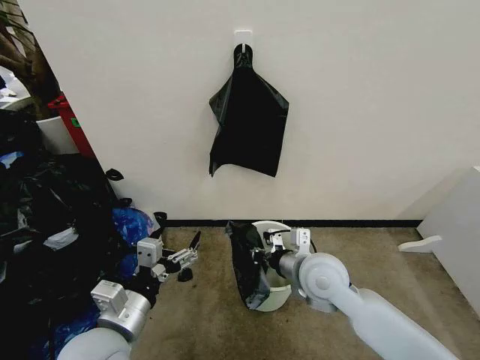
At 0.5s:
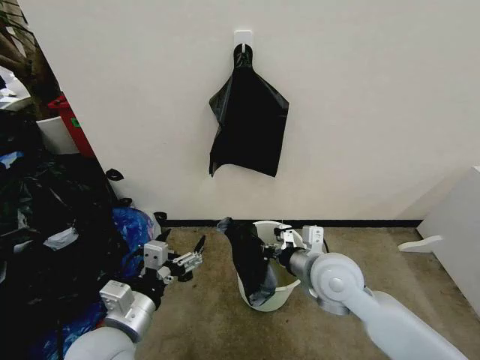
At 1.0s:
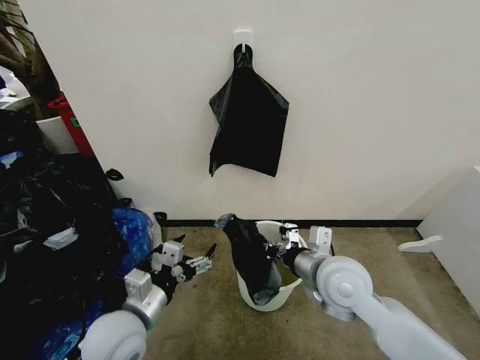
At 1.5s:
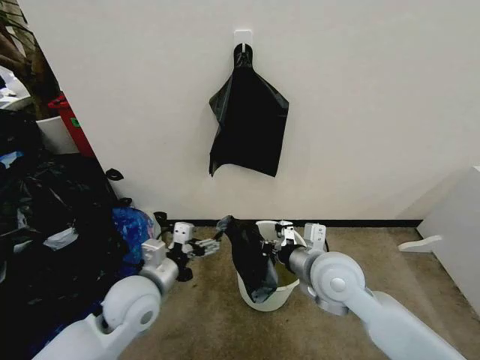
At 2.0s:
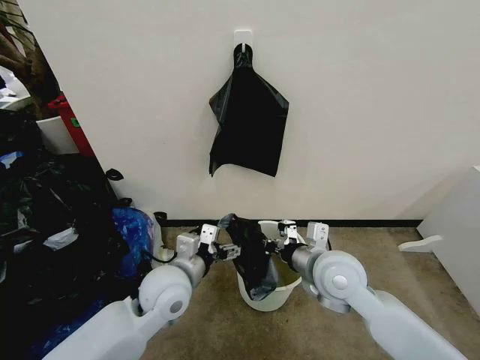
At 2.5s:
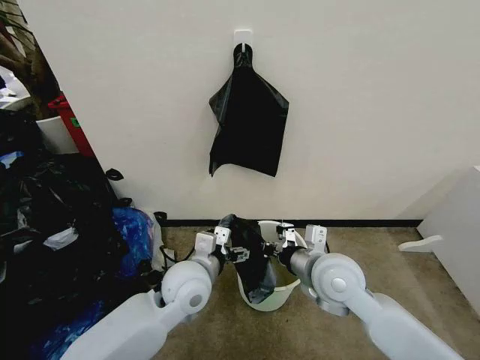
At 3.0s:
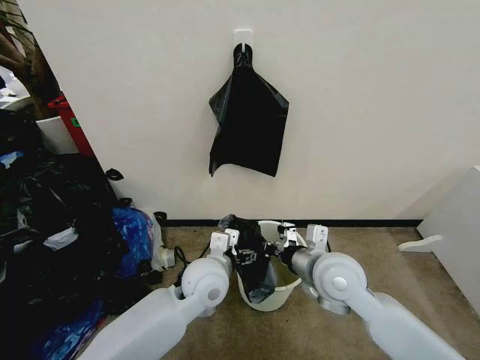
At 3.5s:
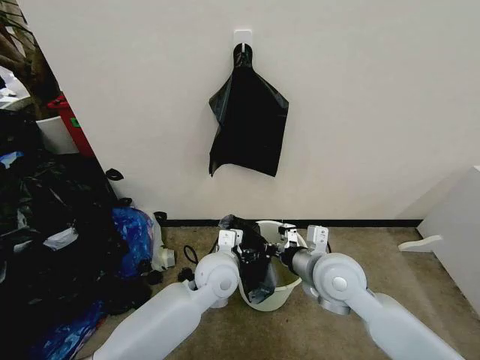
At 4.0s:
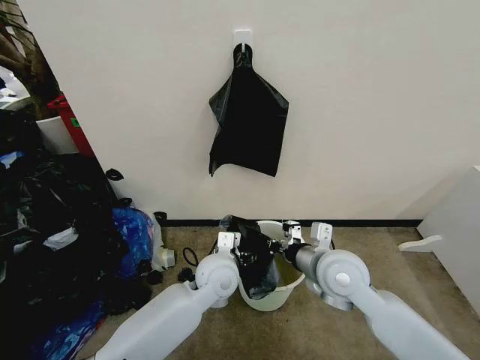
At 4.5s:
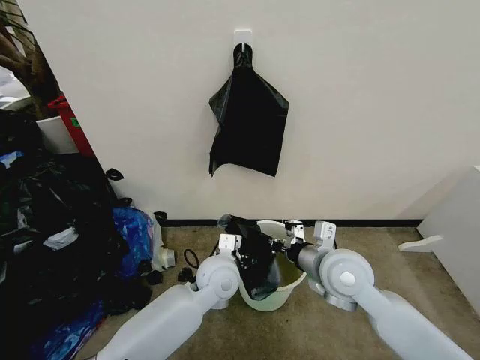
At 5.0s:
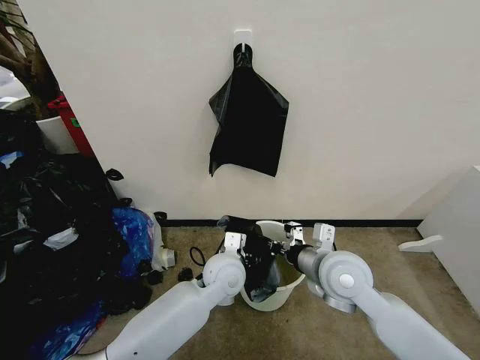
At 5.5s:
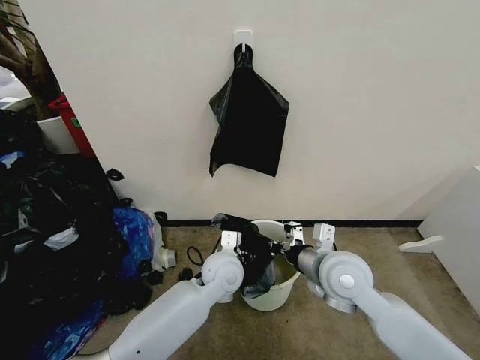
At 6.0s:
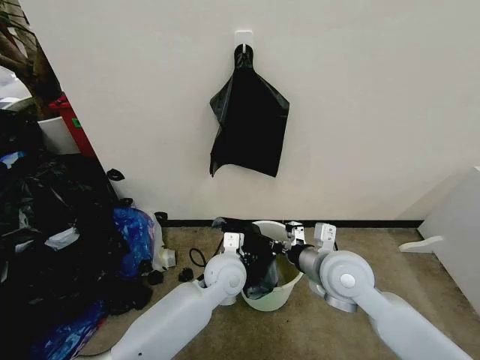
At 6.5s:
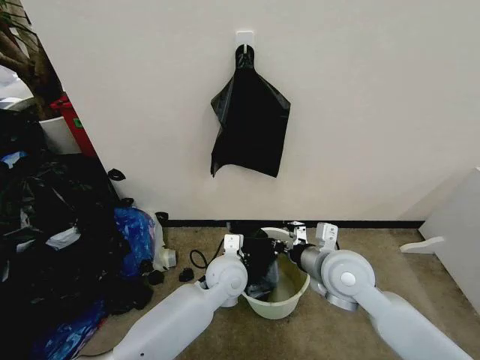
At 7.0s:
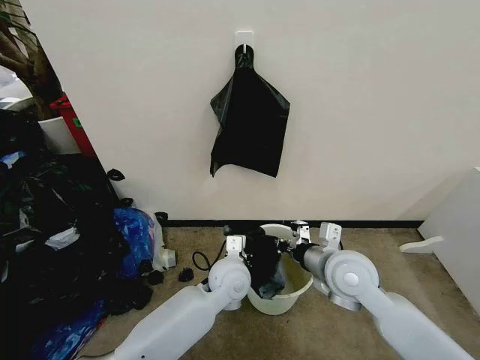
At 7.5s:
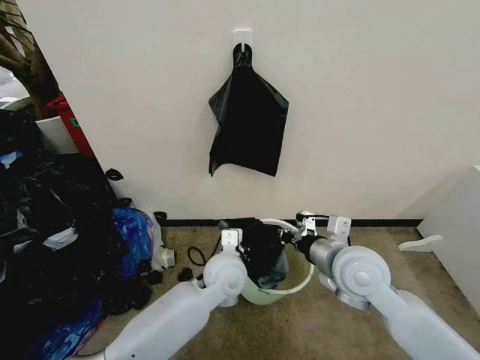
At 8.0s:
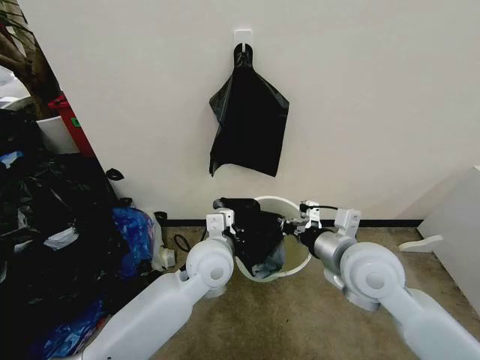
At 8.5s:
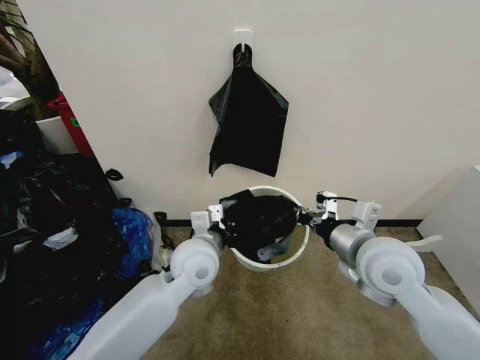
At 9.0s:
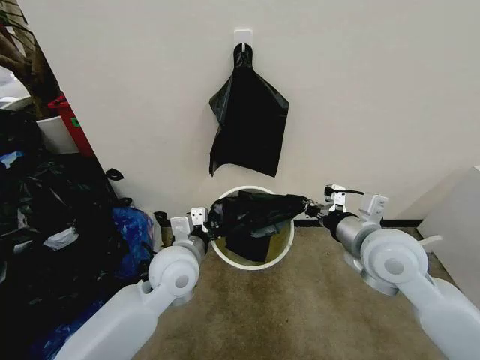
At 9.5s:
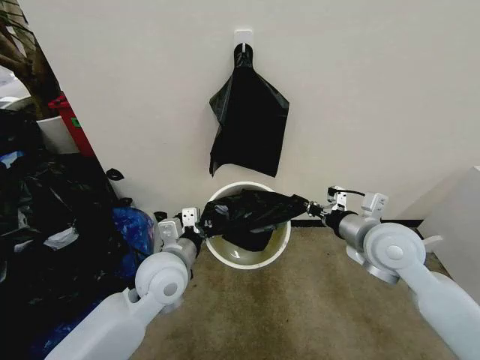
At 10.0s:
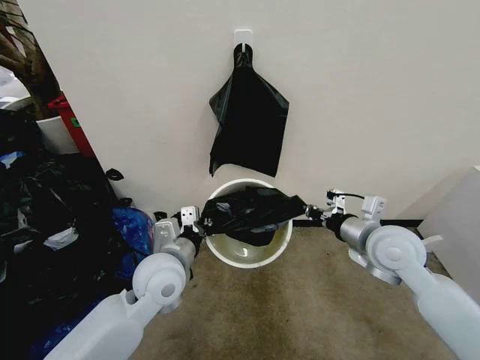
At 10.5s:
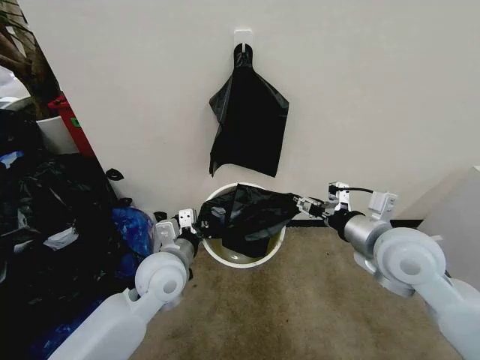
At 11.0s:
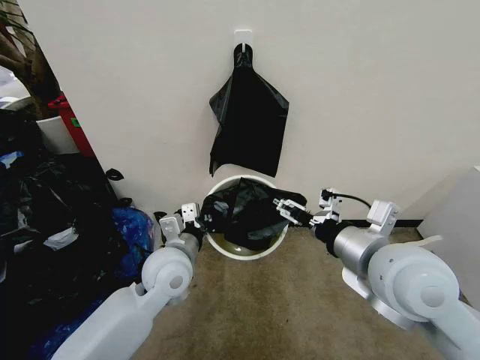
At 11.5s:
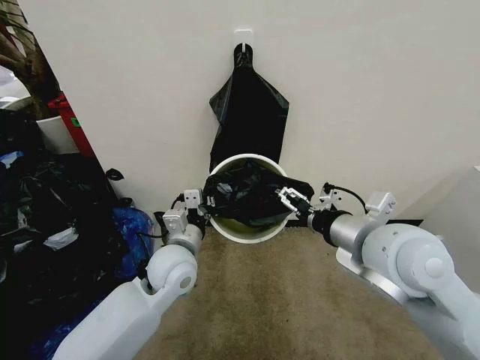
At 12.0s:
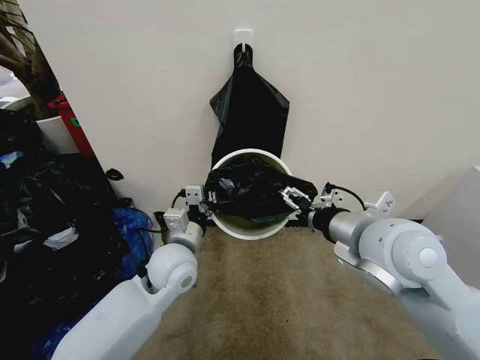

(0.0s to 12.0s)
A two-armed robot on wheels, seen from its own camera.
Task of the whole recording: Place the garbage bag over the trash bin.
0.0s - 2.0s: The left gripper goes approximately 15 cm forward and to the right.
2.0s - 4.0s: The left gripper shifts about 10 cm to the right.
4.0s - 6.0s: There are only small adjustments of the grippers.
6.0s - 8.0s: The left gripper travels upward by some 10 cm, and closes up, while the right gripper shifts some 5 cm upward.
8.0s - 10.0s: The right gripper travels to the right by approximately 5 cm; the left gripper heads to the left, covering roughly 10 cm.
10.0s - 12.0s: The right gripper is displaced upward, to the left and backward by approximately 15 cm, and opens up.

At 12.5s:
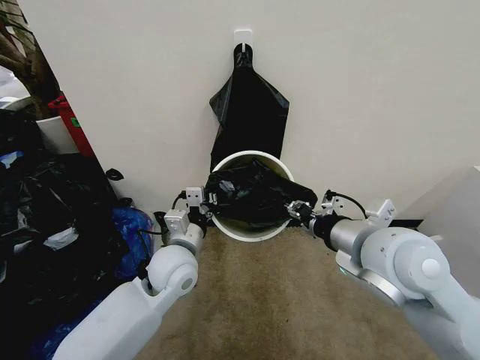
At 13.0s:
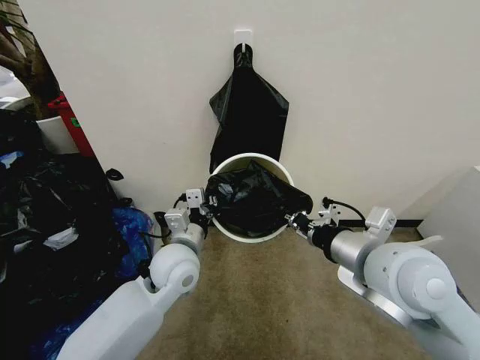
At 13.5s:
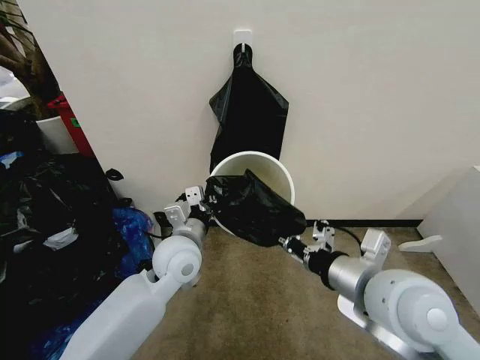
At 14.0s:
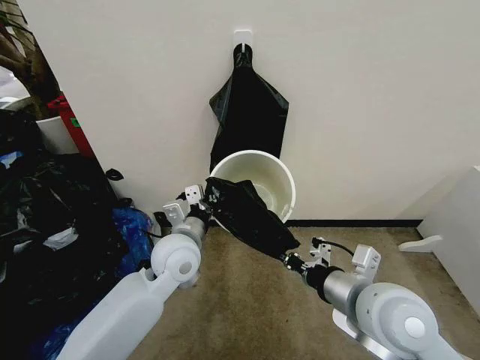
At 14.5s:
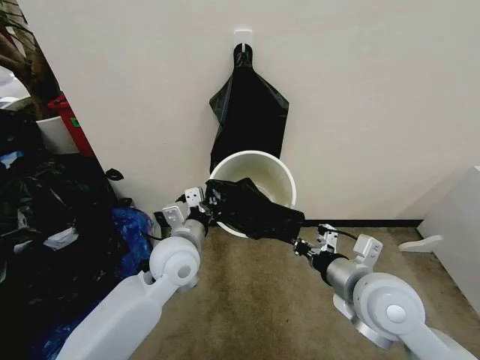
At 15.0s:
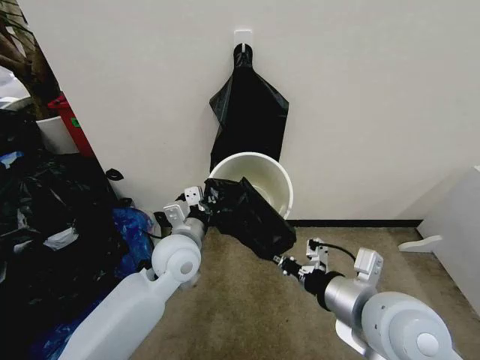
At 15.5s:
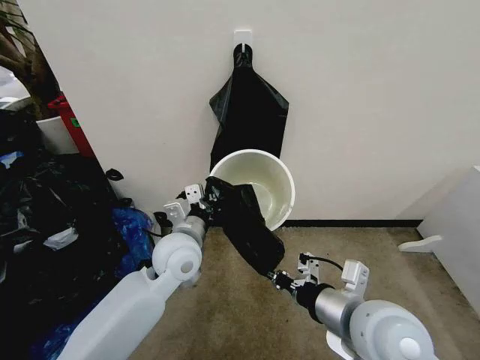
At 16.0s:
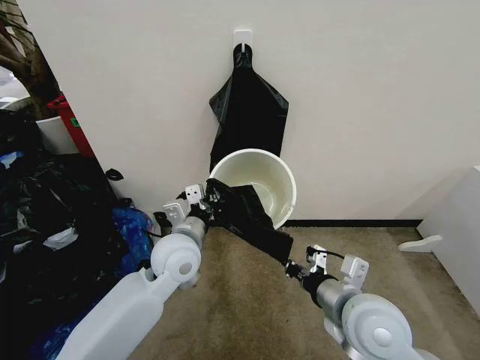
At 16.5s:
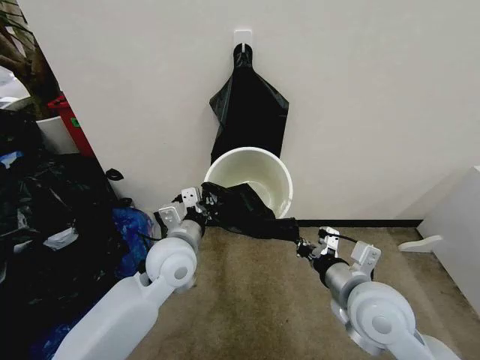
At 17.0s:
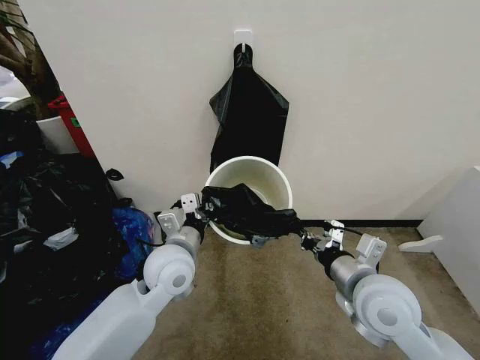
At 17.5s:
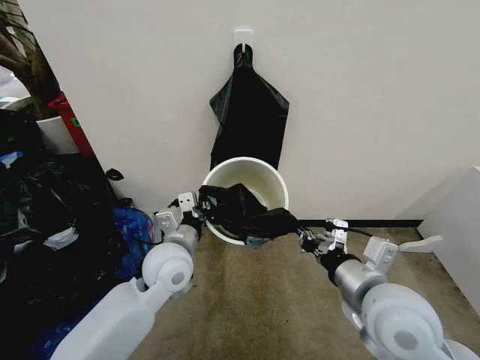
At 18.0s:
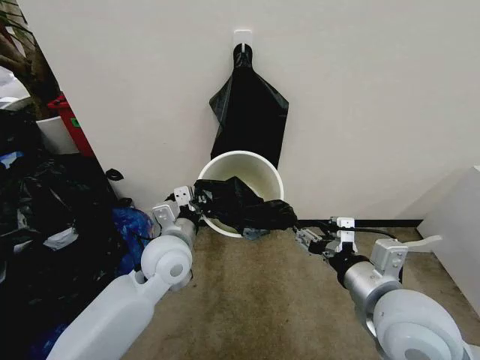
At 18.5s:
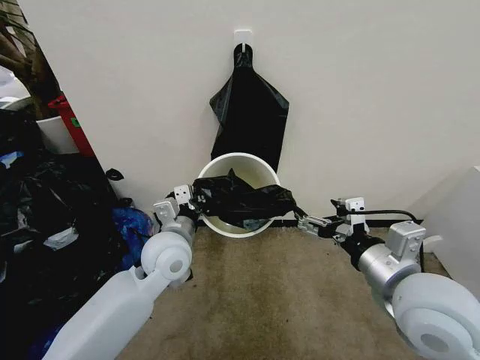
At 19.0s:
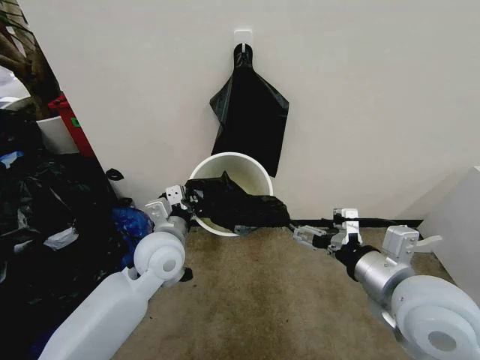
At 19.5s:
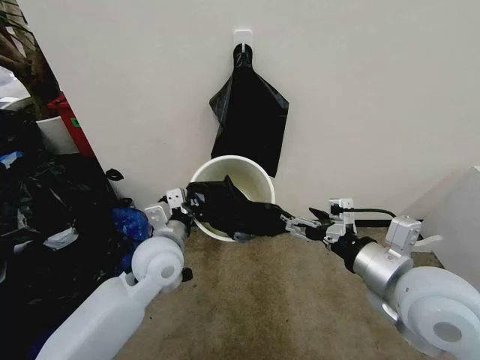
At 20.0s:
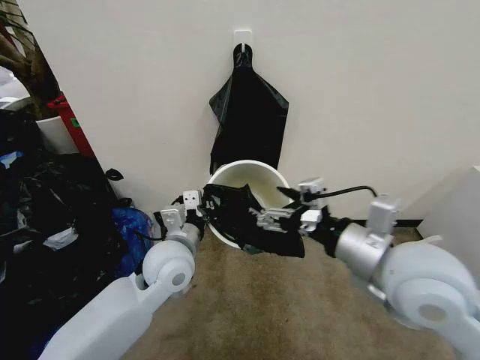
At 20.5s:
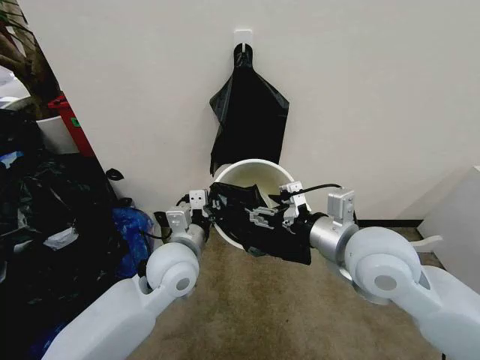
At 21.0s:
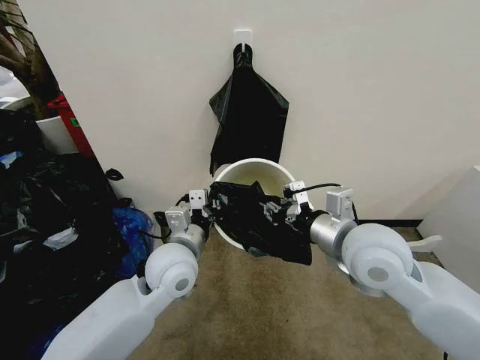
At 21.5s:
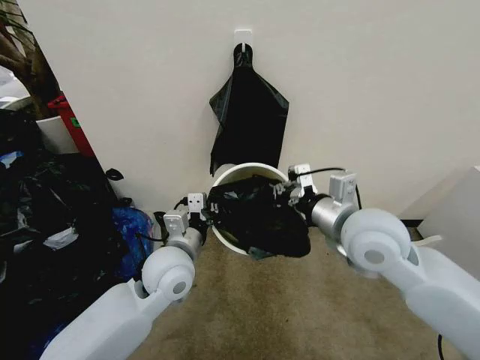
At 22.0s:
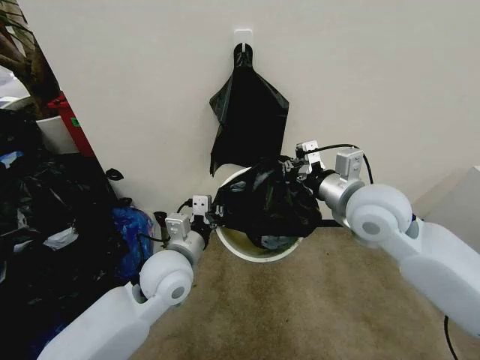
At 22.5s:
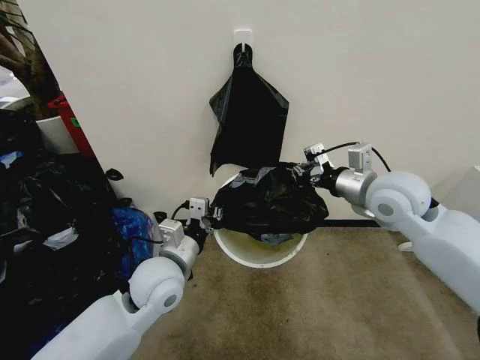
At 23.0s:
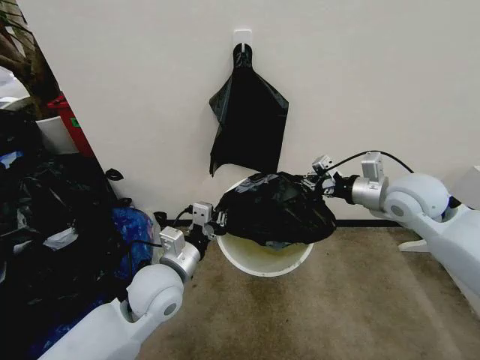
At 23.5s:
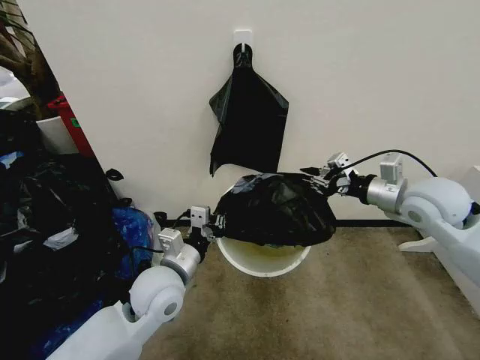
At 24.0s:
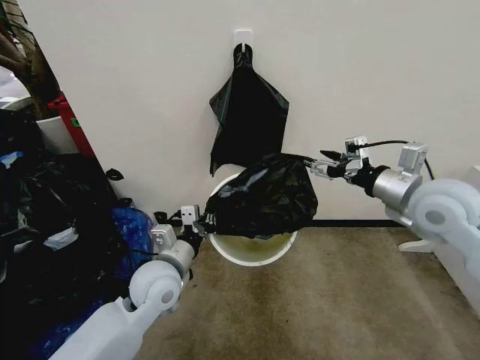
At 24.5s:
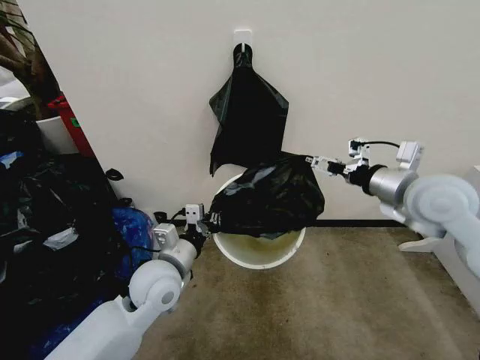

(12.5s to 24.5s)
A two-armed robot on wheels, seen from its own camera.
Task of the whole recording: Place the garbage bag over the trash bin.
12.5s - 14.5s: The right gripper is displaced downward by about 10 cm.
16.5s - 18.5s: The right gripper is displaced upward by some 10 cm, and opens up.
18.5s - 20.5s: The right gripper is displaced forward and to the left by approximately 10 cm.
20.5s - 22.5s: The right gripper moves forward and to the right, about 15 cm, and closes up.
22.5s - 24.5s: The right gripper is displaced to the right by some 5 cm, and opens.

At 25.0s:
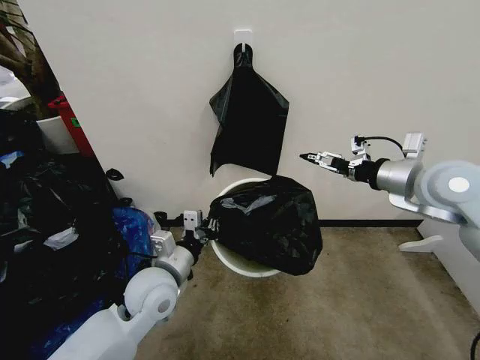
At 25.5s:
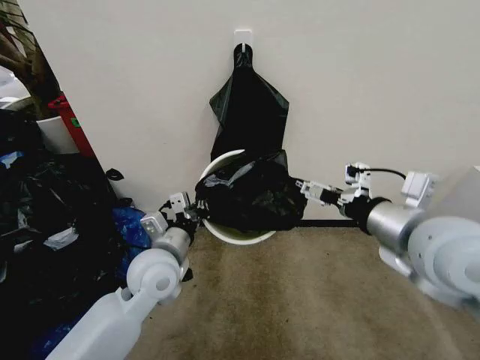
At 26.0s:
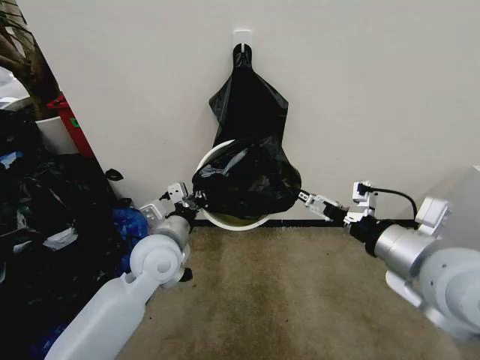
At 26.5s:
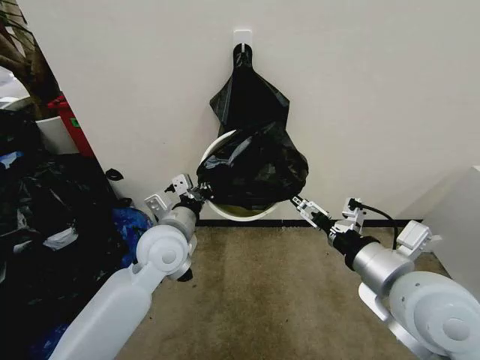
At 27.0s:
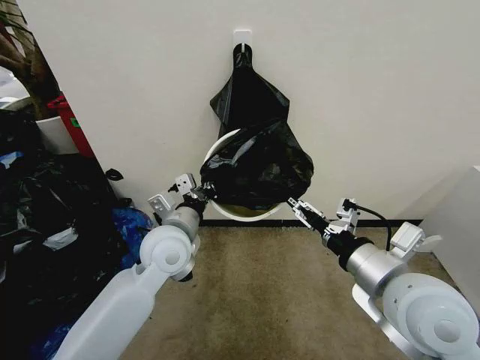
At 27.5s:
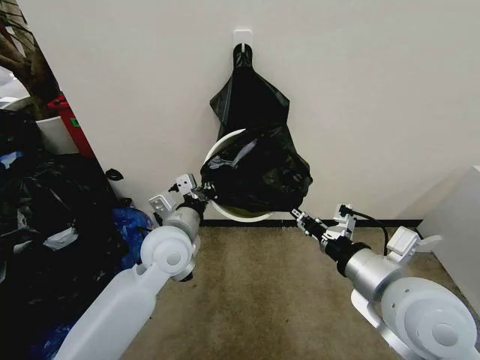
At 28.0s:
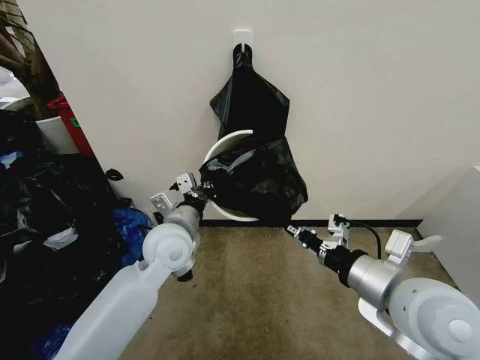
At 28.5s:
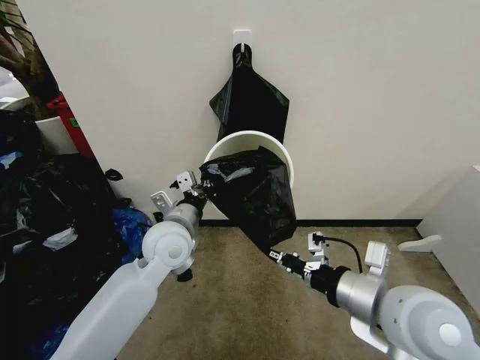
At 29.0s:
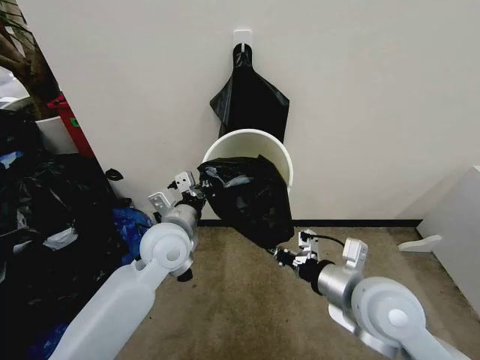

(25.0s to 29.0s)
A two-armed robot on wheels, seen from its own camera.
Task of the whole recording: Place the garbage bag over the trash bin.
25.0s - 27.0s: The left gripper goes approximately 10 cm upward and forward. The right gripper goes some 20 cm backward and to the left.
27.0s - 29.0s: The right gripper goes some 5 cm downward, and closes.
